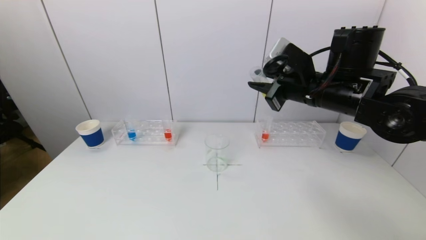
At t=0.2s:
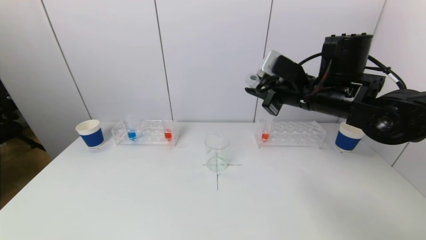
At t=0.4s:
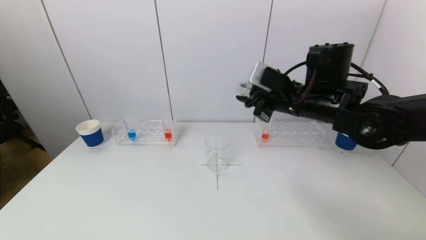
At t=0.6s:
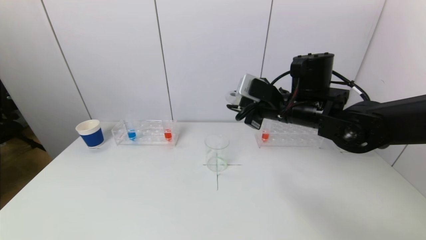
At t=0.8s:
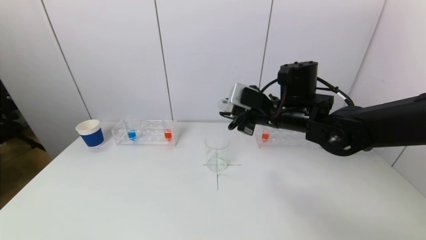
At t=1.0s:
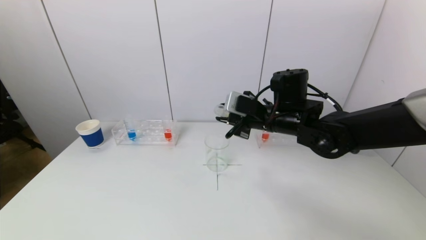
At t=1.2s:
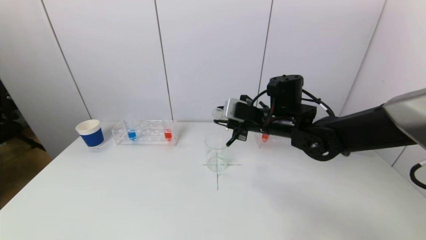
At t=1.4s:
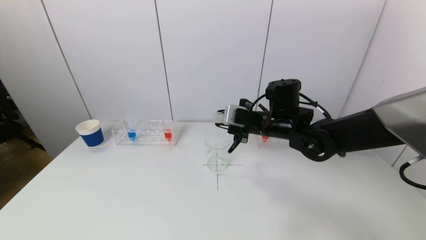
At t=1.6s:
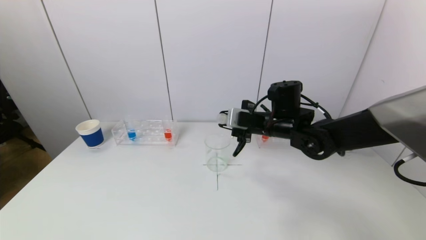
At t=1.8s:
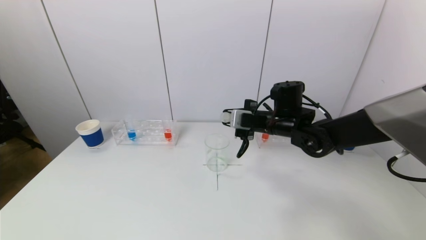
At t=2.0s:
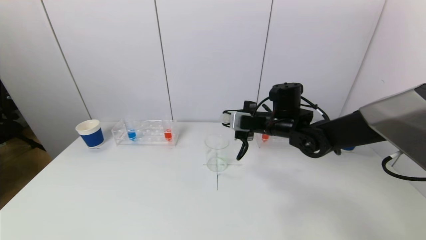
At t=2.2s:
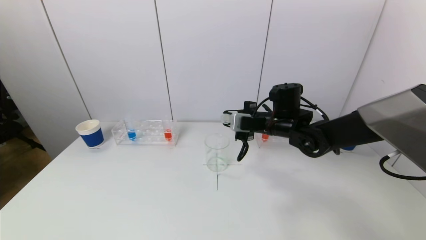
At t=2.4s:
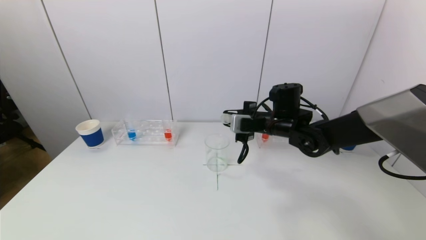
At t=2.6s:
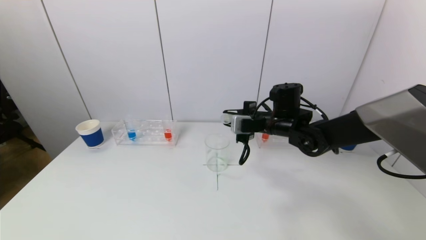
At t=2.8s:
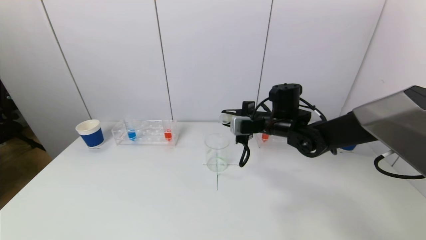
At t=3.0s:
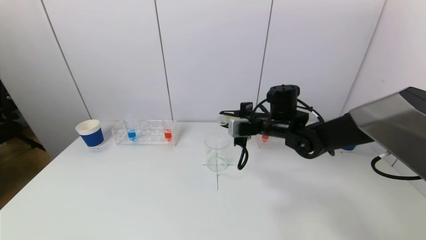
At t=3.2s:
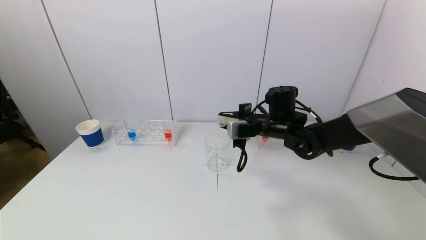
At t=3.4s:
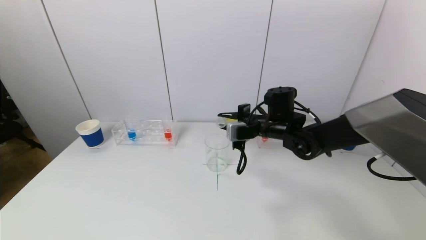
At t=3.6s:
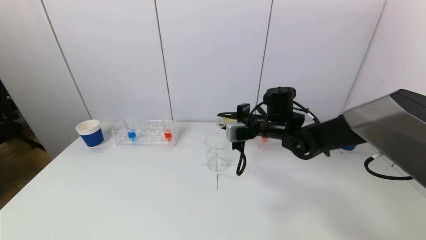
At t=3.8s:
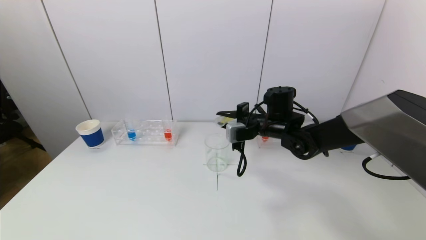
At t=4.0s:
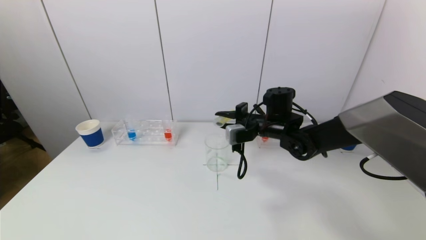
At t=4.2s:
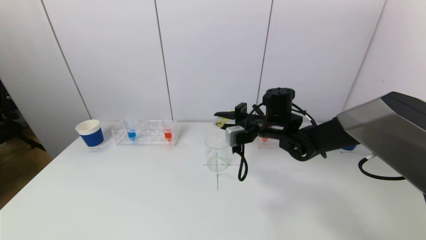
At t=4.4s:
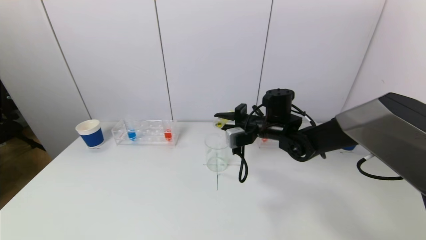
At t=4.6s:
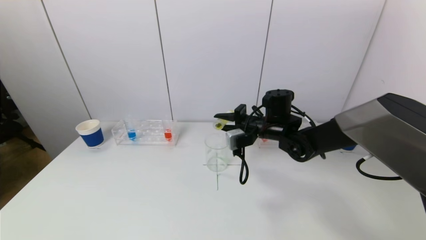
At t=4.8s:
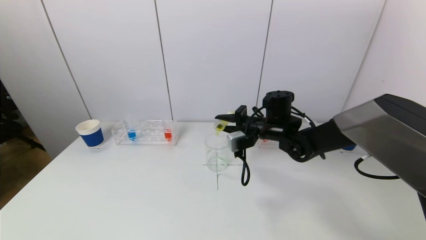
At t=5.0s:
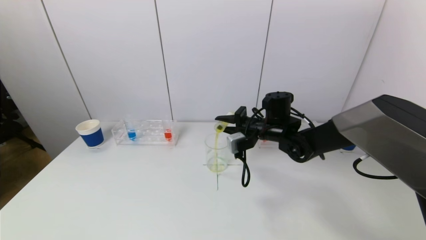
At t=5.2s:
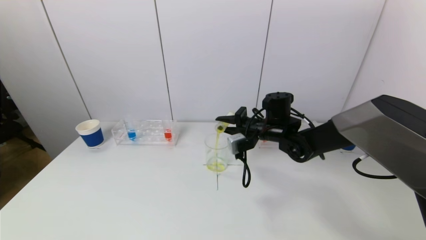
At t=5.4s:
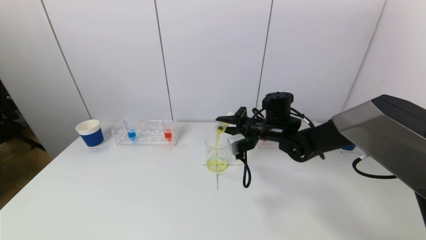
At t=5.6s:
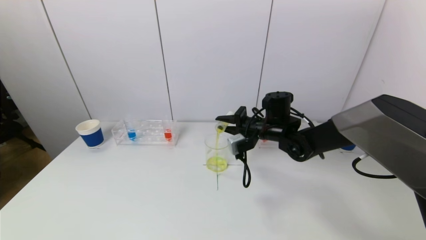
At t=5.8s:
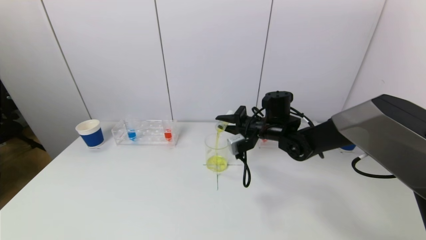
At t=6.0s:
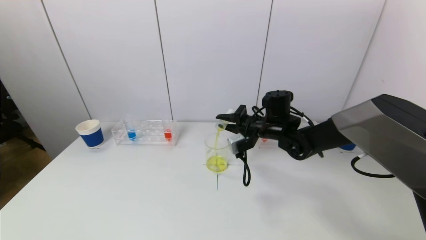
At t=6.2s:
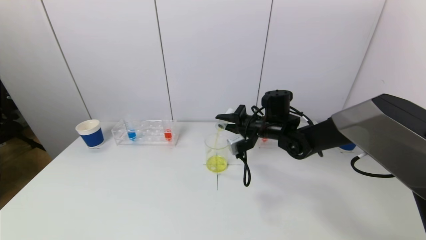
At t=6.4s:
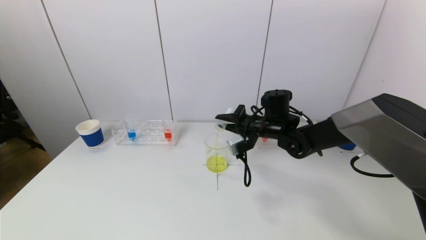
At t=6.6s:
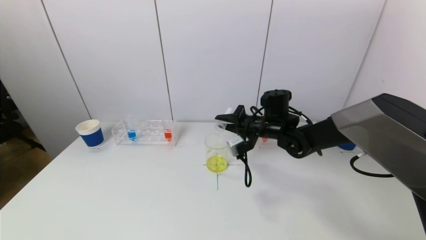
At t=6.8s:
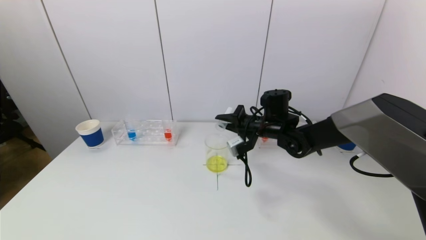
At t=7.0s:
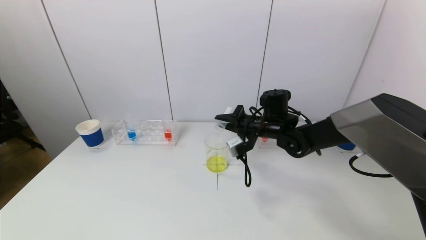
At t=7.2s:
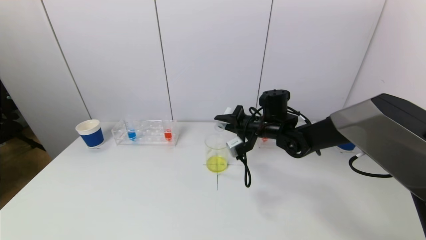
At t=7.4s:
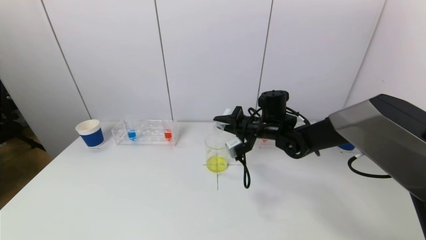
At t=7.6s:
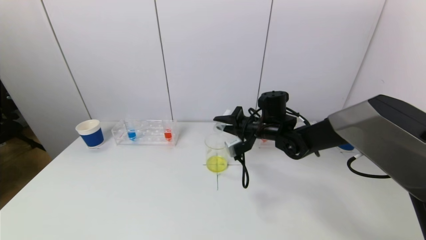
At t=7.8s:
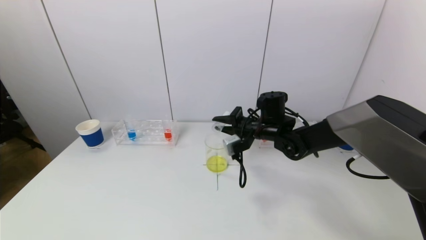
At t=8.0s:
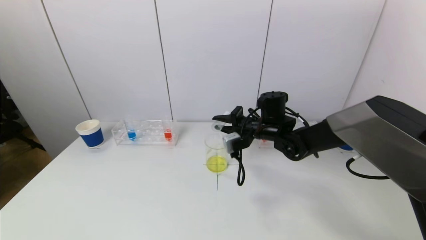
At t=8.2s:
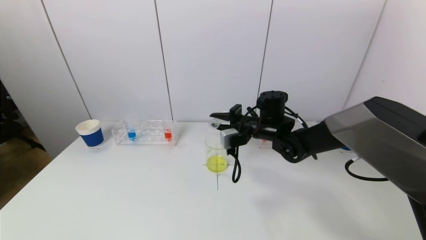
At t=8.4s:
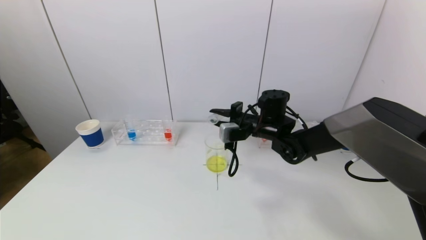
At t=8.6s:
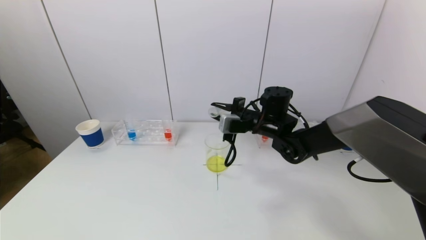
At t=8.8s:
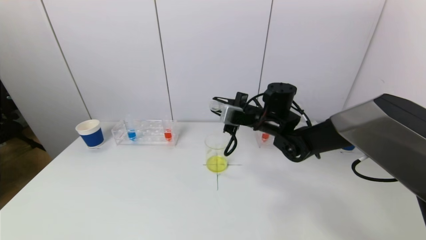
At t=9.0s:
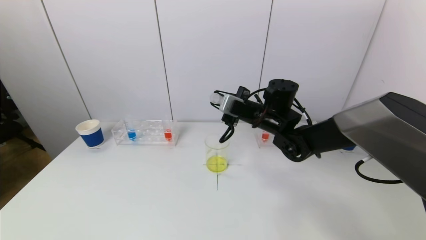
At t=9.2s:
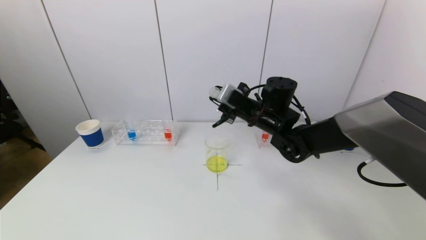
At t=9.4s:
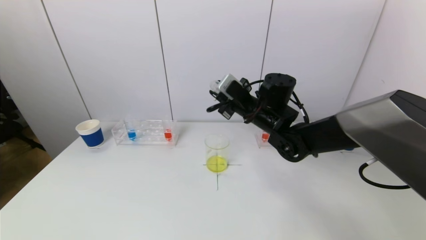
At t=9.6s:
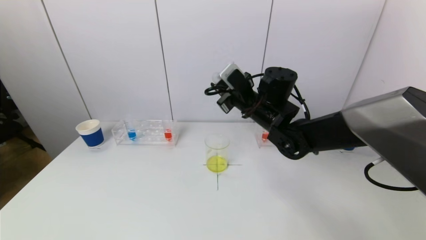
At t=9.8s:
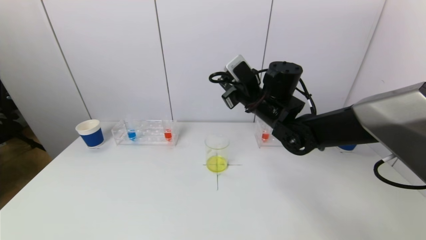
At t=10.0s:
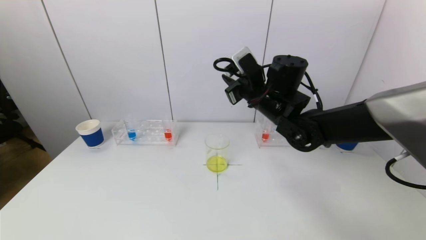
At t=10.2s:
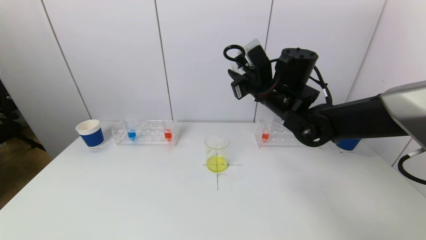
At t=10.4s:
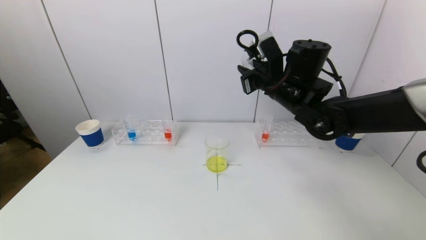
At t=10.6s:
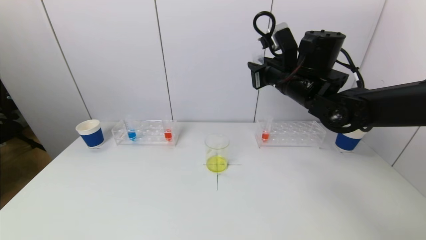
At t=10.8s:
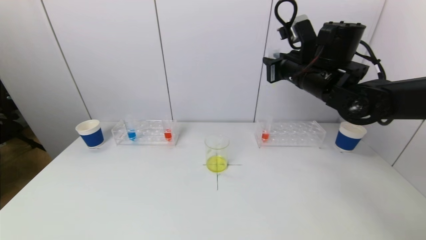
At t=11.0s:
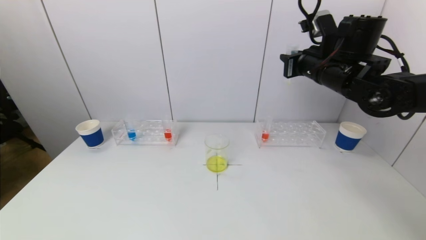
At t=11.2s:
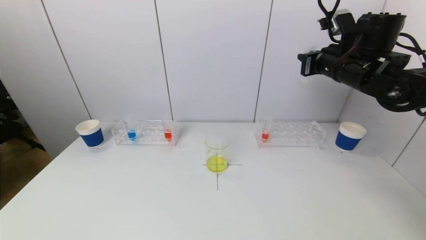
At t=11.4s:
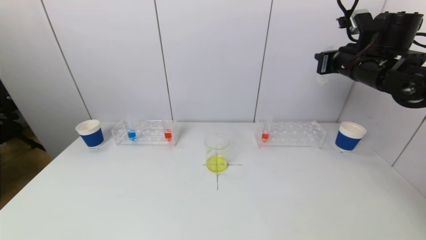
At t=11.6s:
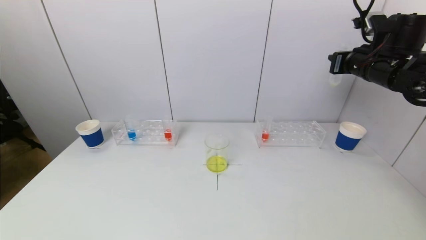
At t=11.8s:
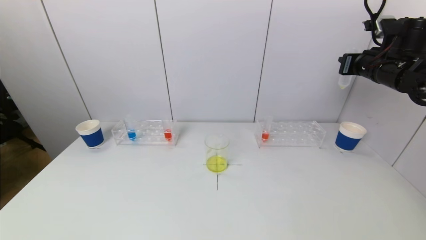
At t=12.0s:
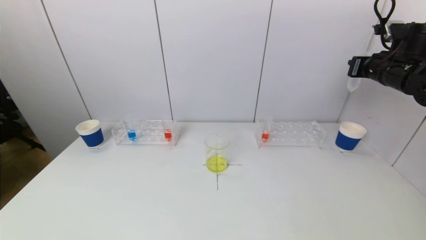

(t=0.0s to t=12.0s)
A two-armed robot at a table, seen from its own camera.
Task of the whole recording: pick up a test tube with pigment on left test tube rack and a test tube with pigment on right test tube rack by grippers and pour them into the beaker.
Step, t=0.0s - t=7.2s: Pour the yellow reagent into the graduated cylinder with the right gripper.
t=0.0s - t=1.6s: The right gripper moves downward and forward, roughly 10 cm.
t=1.6s - t=3.0s: The grippers stay close to where they were, moving slightly.
t=3.0s - t=4.4s: The grippers make only small movements.
t=4.4s - t=6.0s: The grippers make only small movements.
t=6.0s - t=7.6s: The grippers make only small movements.
t=7.6s - t=9.0s: The right gripper changes place by about 5 cm.
t=9.0s - t=10.4s: The right gripper heads upward, covering some 10 cm.
t=10.4s - t=12.0s: The right gripper travels to the right by some 25 cm.

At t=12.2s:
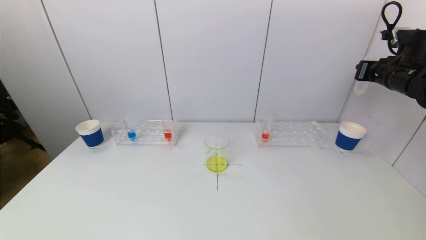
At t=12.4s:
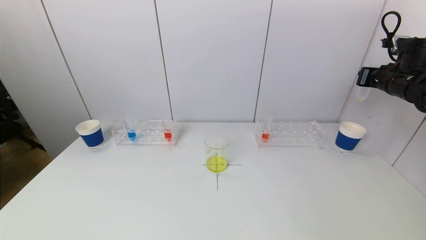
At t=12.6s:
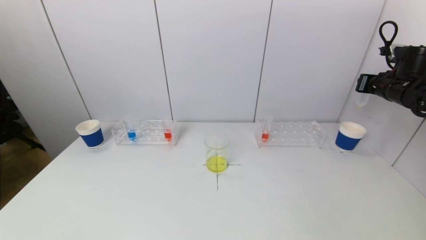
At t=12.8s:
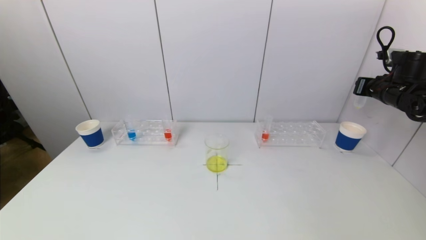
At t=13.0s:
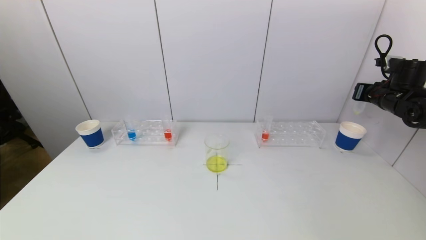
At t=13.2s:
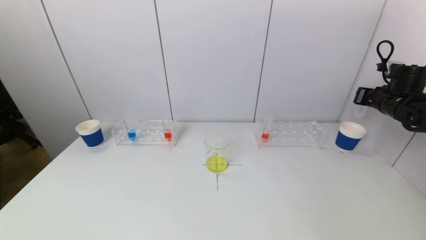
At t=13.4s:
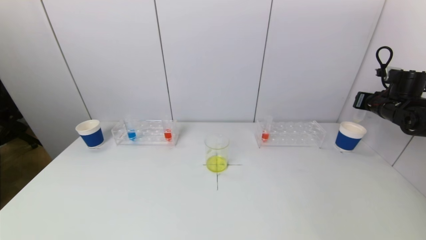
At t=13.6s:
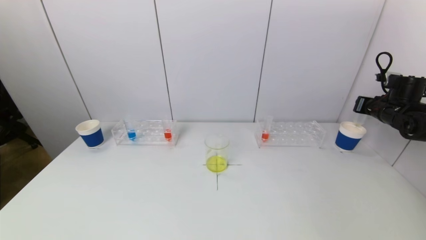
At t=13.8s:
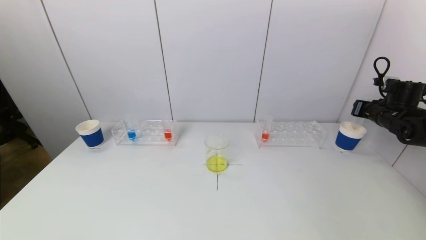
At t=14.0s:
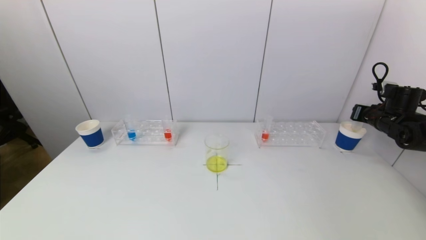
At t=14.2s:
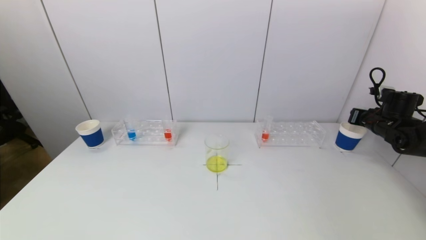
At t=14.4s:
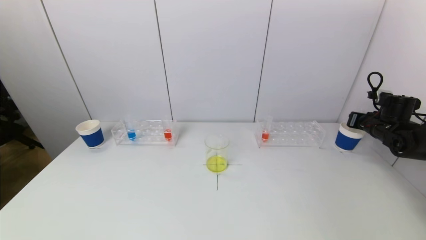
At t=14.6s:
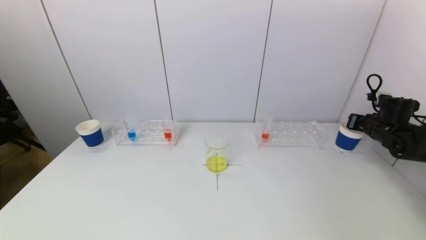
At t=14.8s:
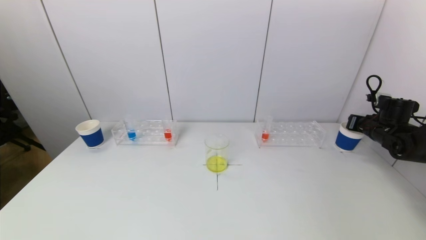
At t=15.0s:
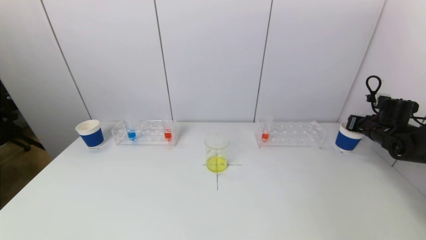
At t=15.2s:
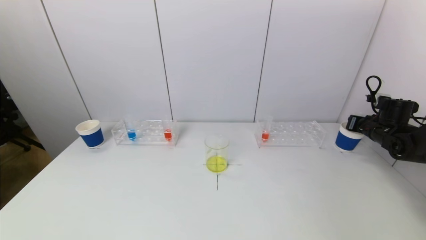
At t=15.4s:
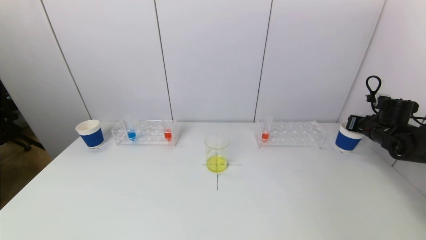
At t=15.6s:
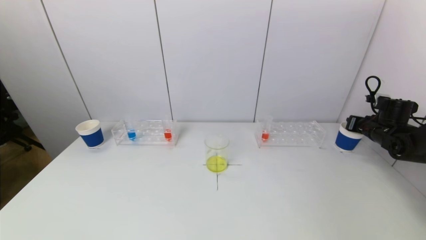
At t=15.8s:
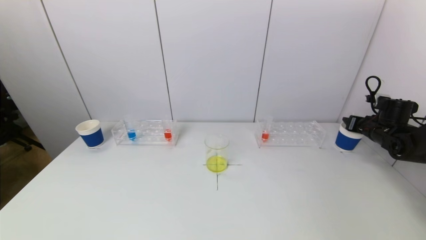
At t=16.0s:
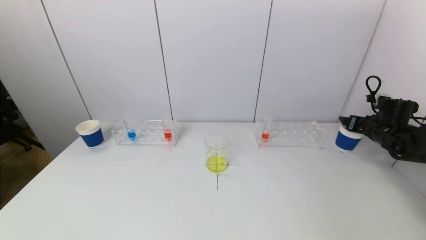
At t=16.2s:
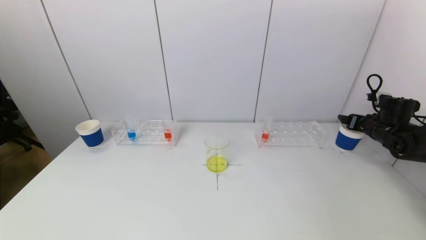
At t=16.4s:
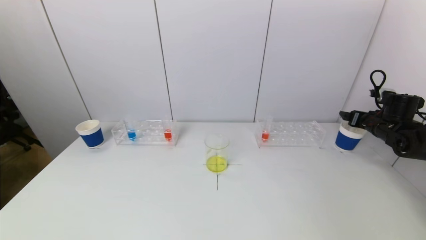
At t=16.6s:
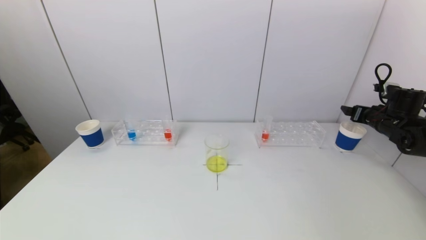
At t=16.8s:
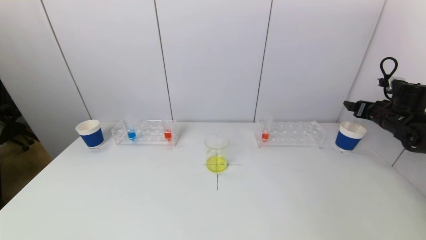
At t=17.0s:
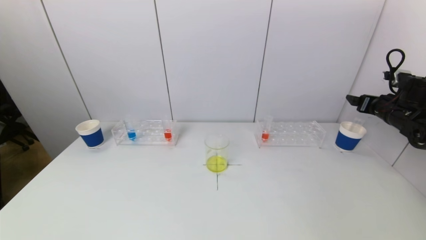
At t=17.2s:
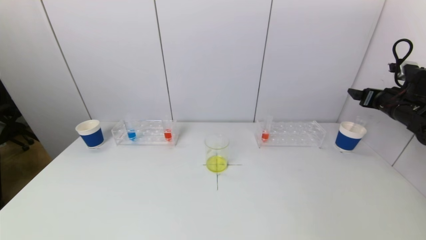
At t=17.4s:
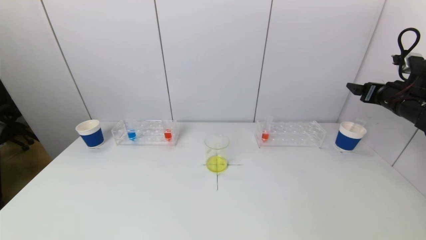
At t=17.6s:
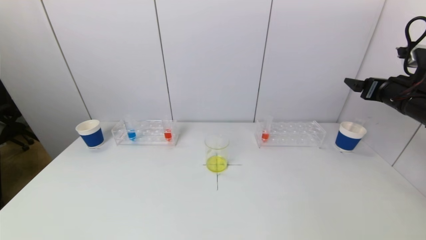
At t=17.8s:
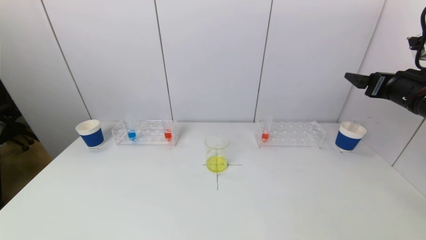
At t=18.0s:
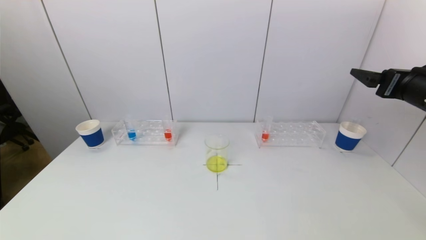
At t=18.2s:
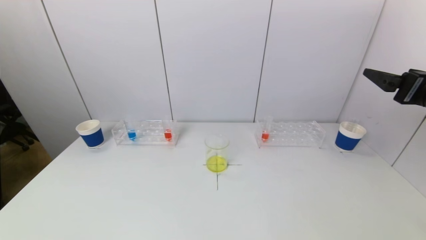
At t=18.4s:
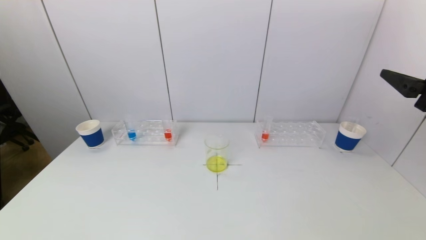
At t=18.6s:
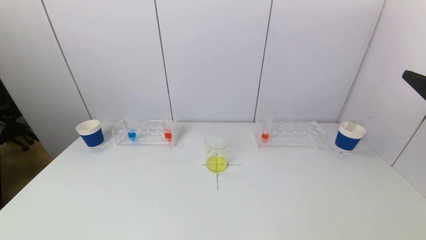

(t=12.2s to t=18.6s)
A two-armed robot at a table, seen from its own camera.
Task of the whole recording: pick up a test tube with pigment on left test tube rack and a test tube with pigment on right test tube rack by grippers and pour them into the beaker.
Step, t=12.2s - t=16.8s: Place the test tube into the paper cup with the right gripper.
t=12.2s - t=13.8s: The right gripper shifts some 15 cm downward and to the right.
t=13.8s - t=15.4s: The grippers stay close to where they were, moving slightly.
t=15.4s - t=17.0s: The right gripper moves upward, some 5 cm, and opens.
t=17.0s - t=18.6s: The right gripper travels backward, upward and to the left by about 25 cm.
